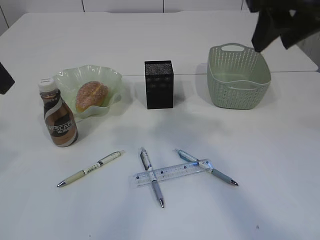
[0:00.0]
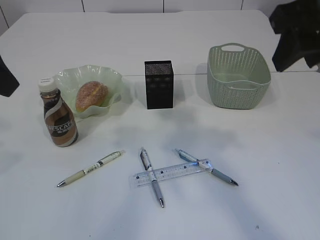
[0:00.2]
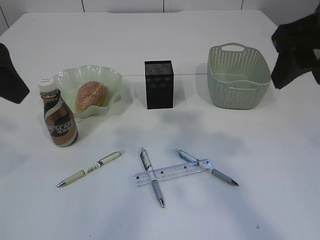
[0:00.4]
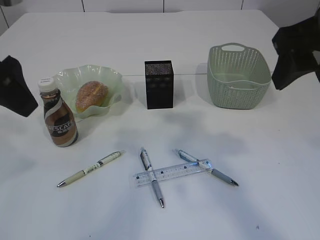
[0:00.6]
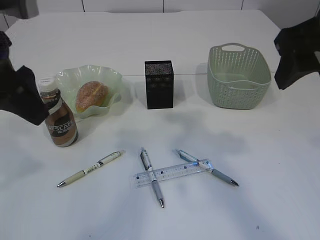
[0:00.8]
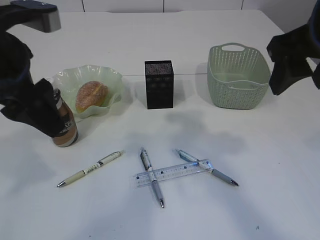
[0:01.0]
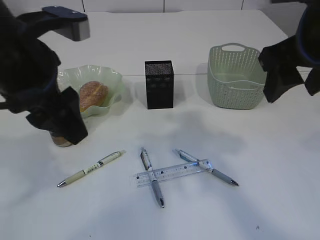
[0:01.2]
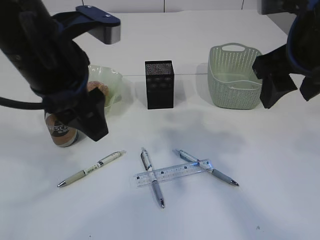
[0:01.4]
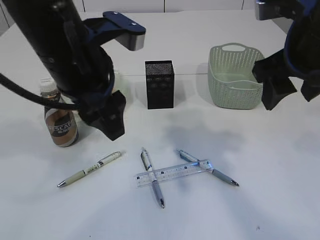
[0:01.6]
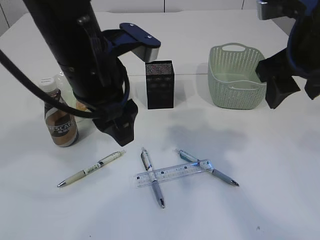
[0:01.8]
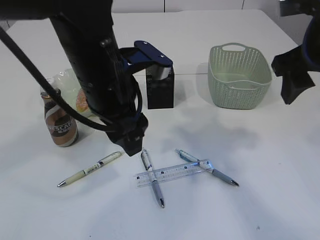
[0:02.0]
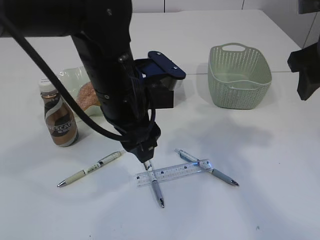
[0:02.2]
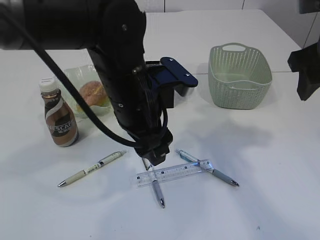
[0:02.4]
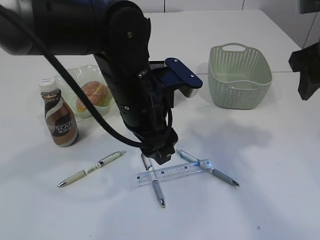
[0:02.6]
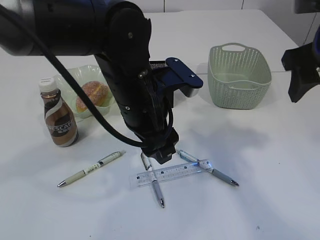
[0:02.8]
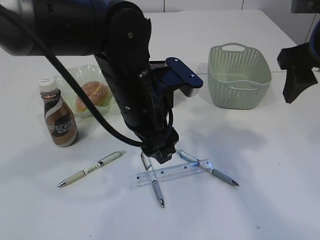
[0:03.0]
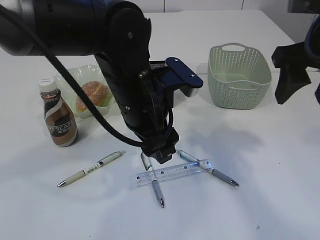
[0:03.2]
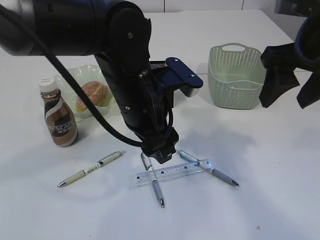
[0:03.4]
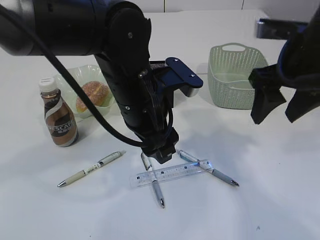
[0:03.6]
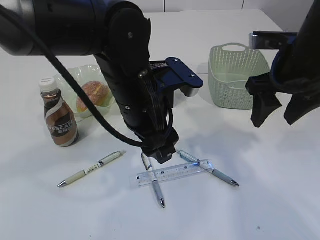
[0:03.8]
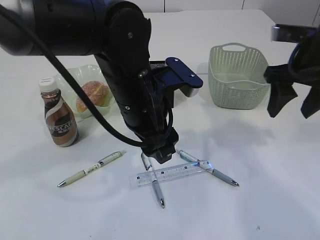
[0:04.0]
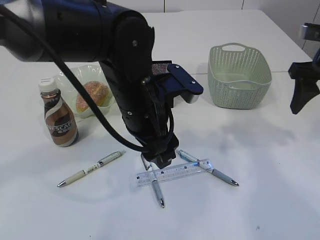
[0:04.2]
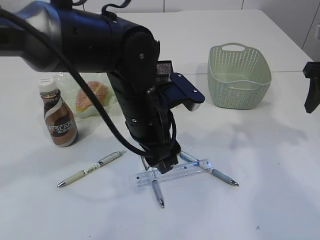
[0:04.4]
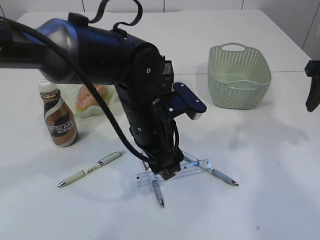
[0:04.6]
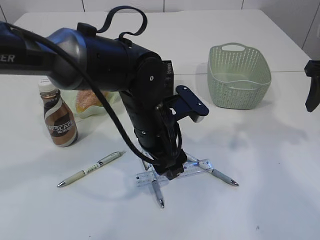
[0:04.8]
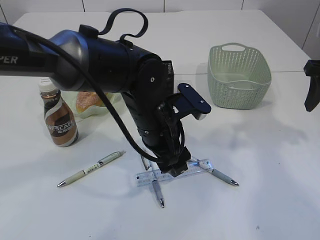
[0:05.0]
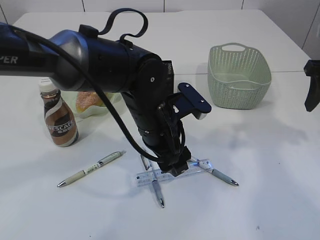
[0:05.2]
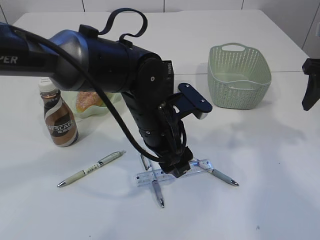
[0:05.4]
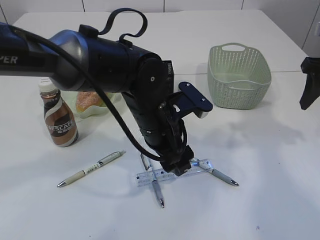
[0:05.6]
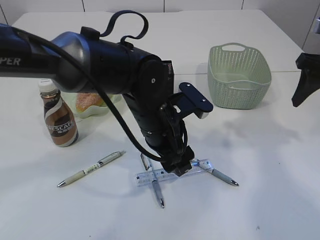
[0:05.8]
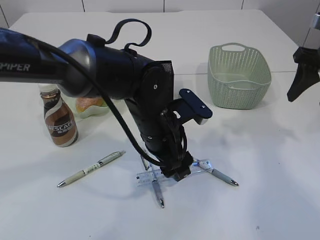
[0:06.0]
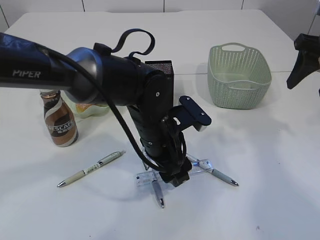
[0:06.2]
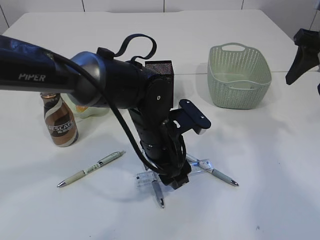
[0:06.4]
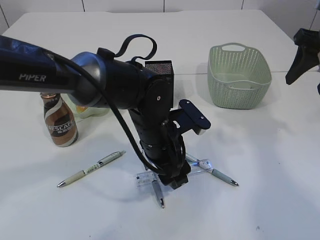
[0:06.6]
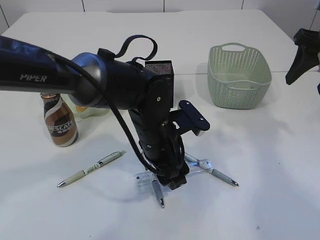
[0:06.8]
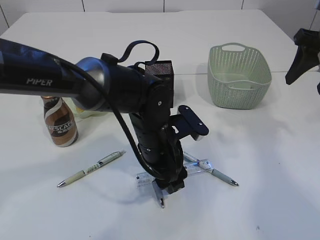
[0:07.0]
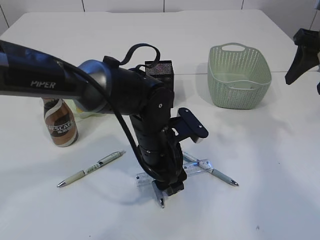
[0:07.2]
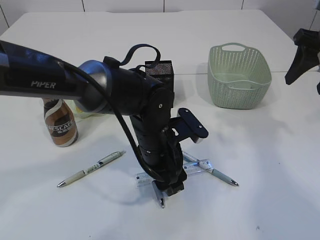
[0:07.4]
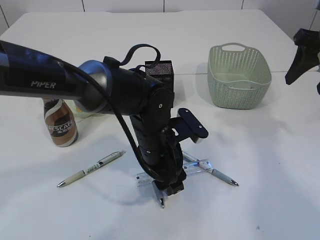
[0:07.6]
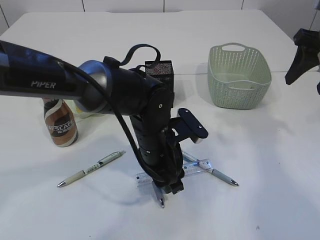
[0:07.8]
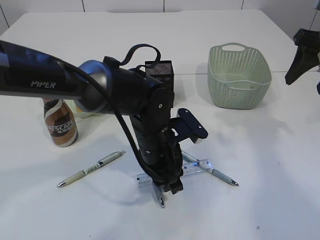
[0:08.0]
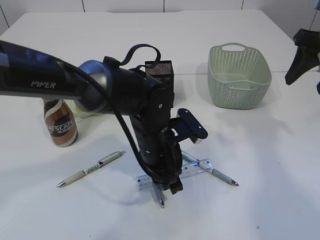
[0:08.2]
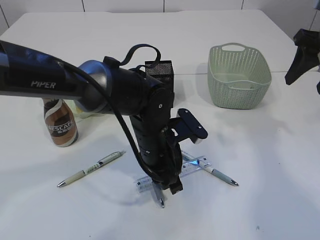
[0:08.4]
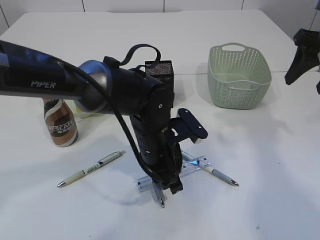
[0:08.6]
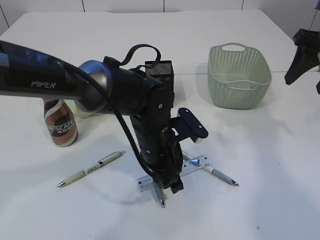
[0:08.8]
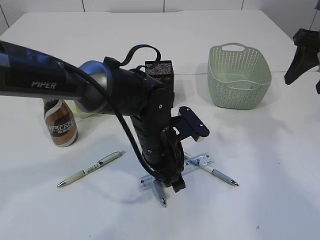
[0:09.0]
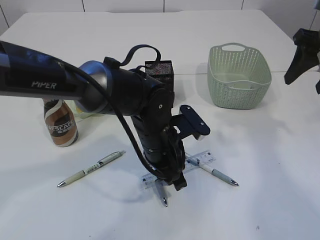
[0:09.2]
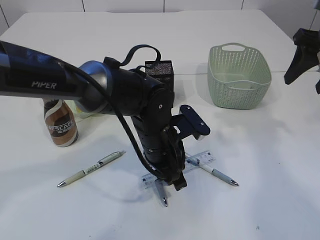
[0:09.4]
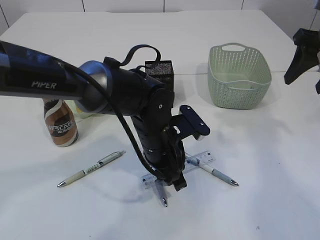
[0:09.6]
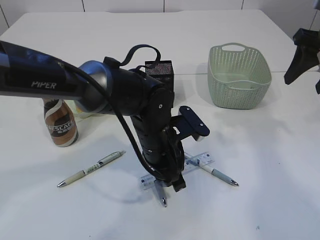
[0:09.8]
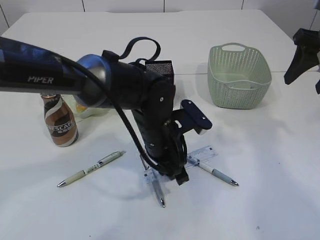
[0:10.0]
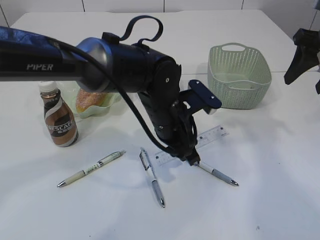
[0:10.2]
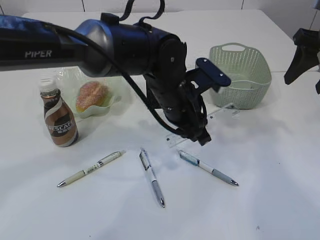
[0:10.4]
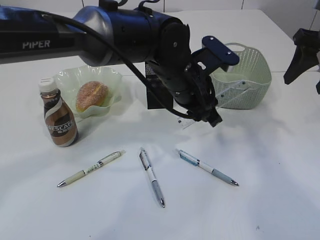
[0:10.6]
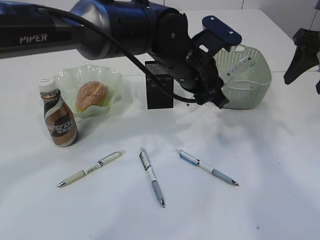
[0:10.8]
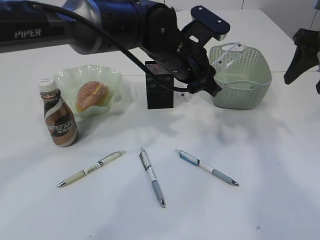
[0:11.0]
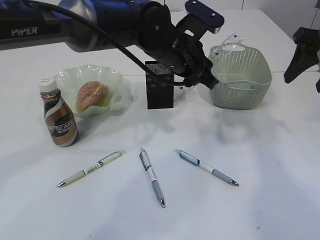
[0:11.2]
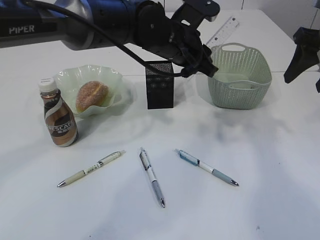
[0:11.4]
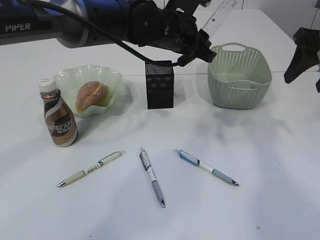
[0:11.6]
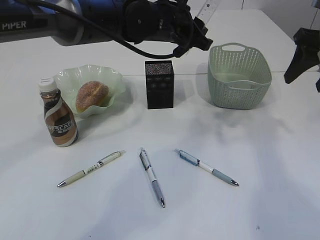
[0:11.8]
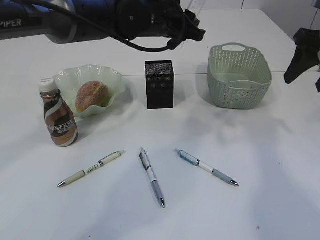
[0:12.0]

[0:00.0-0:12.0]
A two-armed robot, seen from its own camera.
Step, 0:00.0 to 0:10.4: pick up the ruler.
0:00.0 to 0:01.6: The right gripper shifts approximately 5 cm downward. The left gripper goes approximately 15 cm to the right and downward.
0:01.6 to 0:03.0: The left gripper moves downward and to the right, some 10 cm.
0:03.0 to 0:04.4: The right gripper moves to the right and downward, some 10 cm.
0:04.4 to 0:06.0: The left gripper ends up roughly 5 cm from where it was.
0:06.0 to 0:07.6: The grippers stay close to where they were, moving slightly.
0:07.6 to 0:09.0: The left gripper closes.
0:09.0 to 0:10.4: The left gripper shifts roughly 5 cm upward.
0:10.4 to 0:12.0: The left gripper travels forward and upward by some 15 cm.

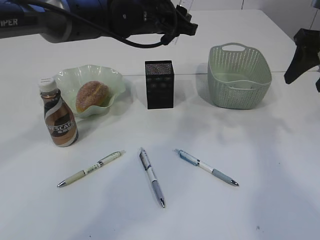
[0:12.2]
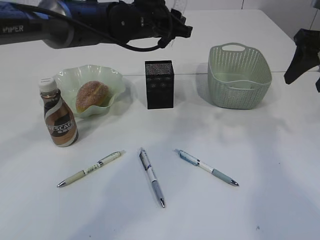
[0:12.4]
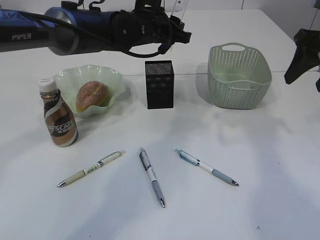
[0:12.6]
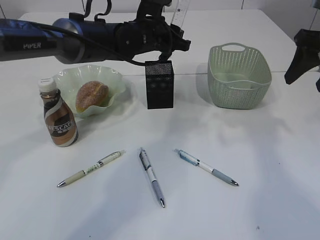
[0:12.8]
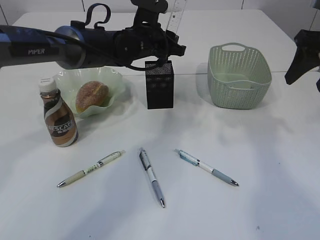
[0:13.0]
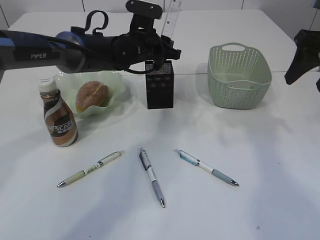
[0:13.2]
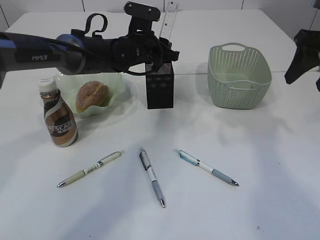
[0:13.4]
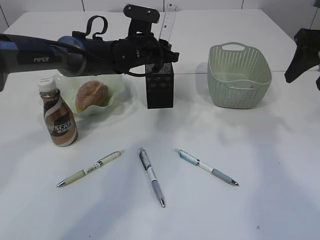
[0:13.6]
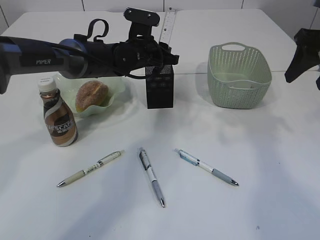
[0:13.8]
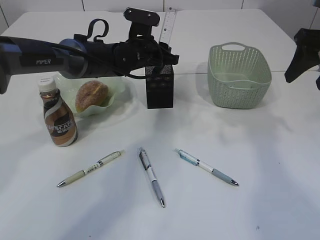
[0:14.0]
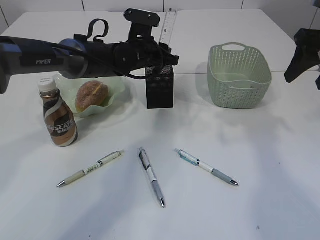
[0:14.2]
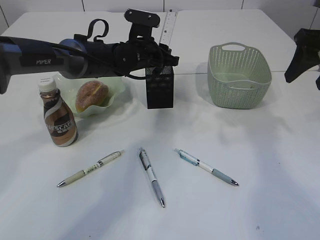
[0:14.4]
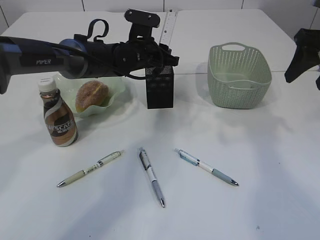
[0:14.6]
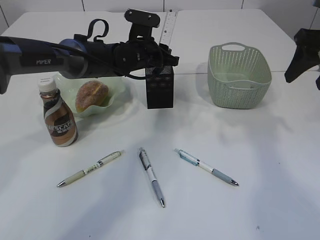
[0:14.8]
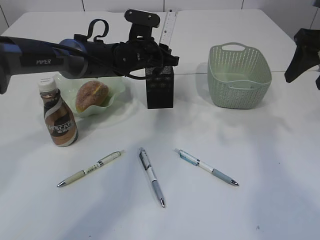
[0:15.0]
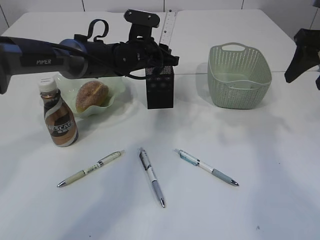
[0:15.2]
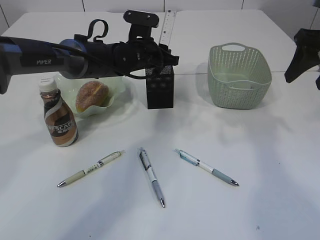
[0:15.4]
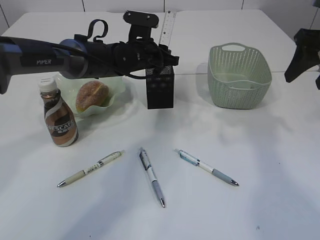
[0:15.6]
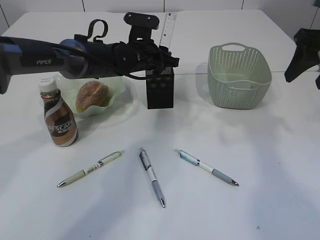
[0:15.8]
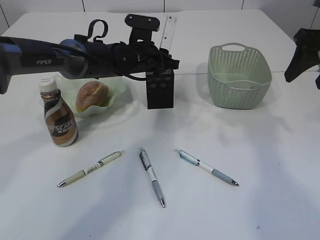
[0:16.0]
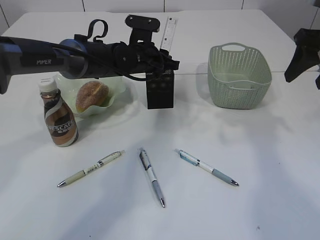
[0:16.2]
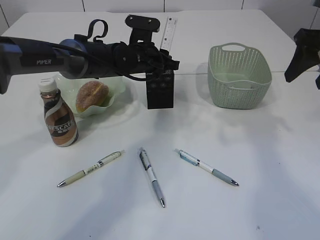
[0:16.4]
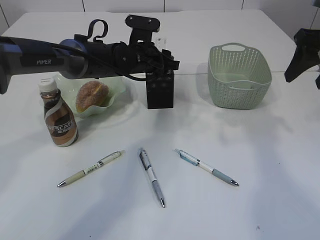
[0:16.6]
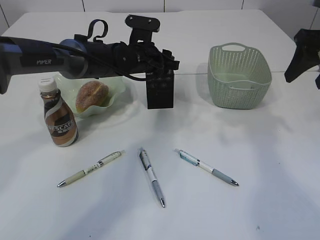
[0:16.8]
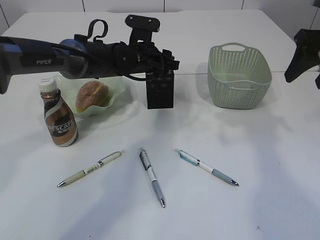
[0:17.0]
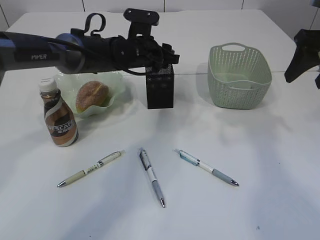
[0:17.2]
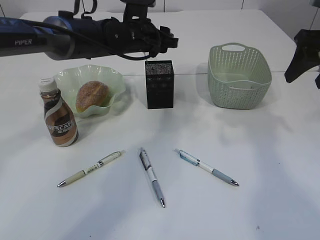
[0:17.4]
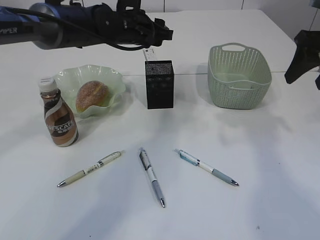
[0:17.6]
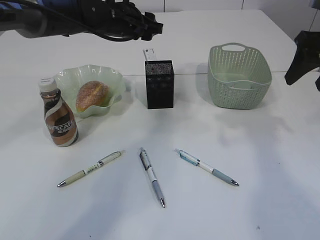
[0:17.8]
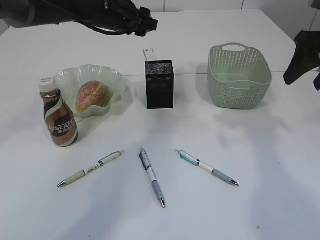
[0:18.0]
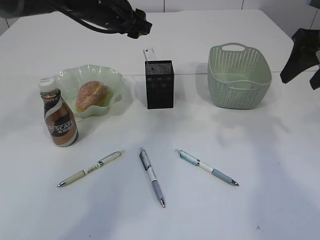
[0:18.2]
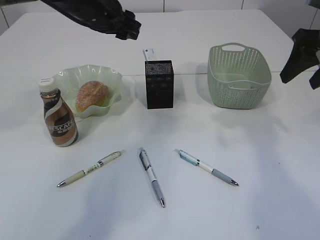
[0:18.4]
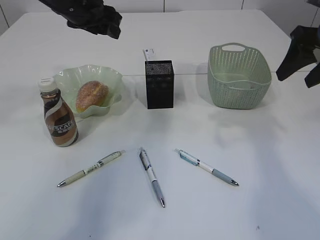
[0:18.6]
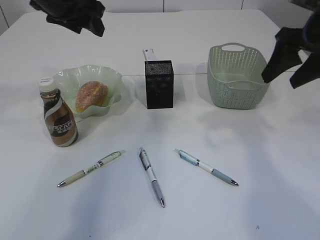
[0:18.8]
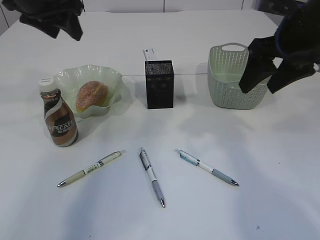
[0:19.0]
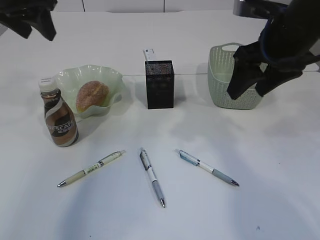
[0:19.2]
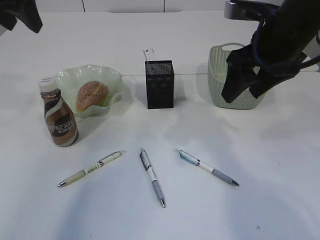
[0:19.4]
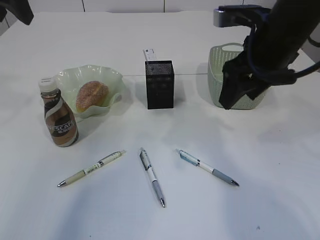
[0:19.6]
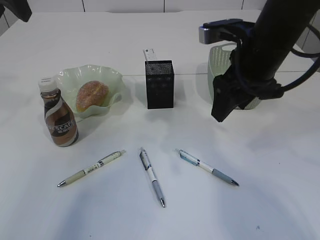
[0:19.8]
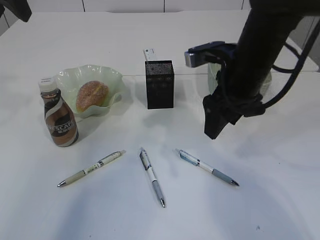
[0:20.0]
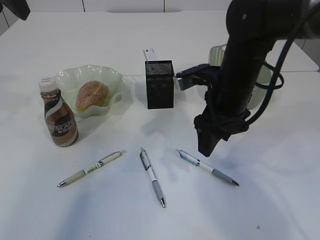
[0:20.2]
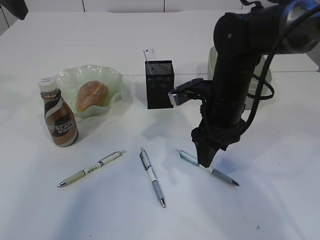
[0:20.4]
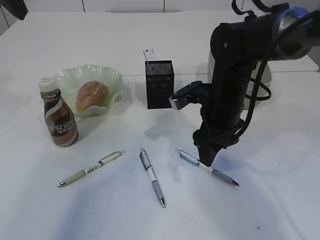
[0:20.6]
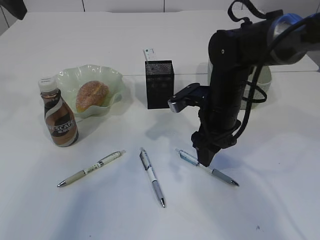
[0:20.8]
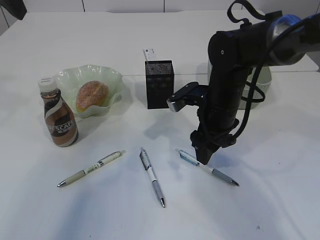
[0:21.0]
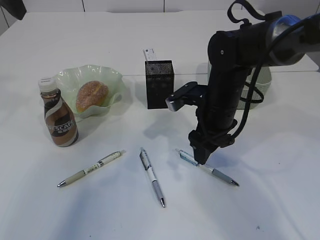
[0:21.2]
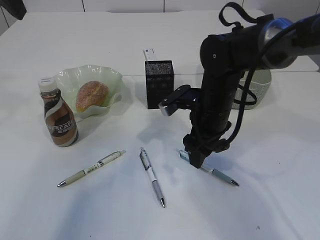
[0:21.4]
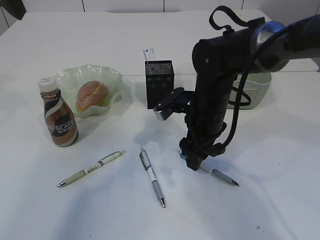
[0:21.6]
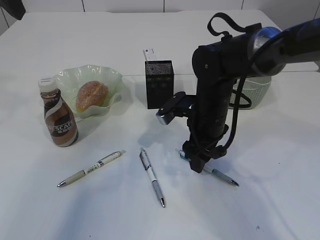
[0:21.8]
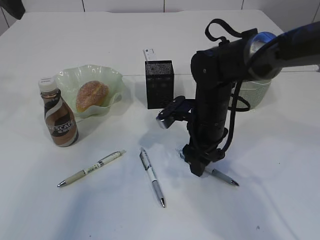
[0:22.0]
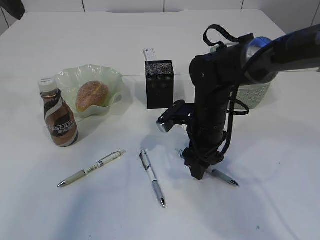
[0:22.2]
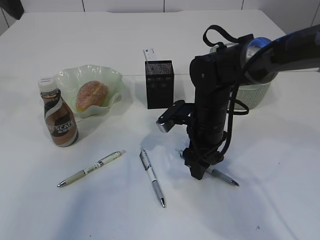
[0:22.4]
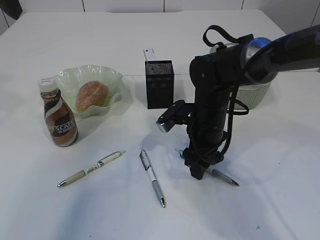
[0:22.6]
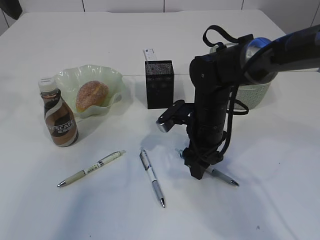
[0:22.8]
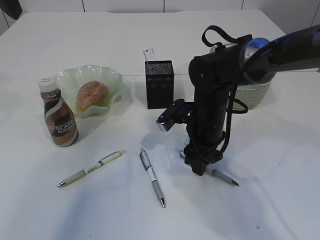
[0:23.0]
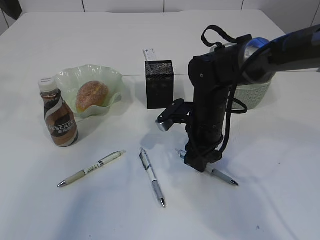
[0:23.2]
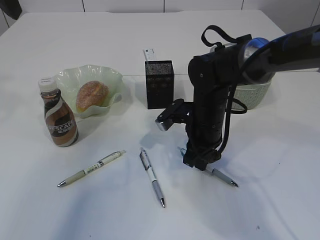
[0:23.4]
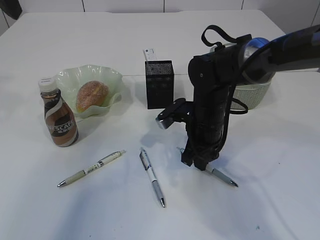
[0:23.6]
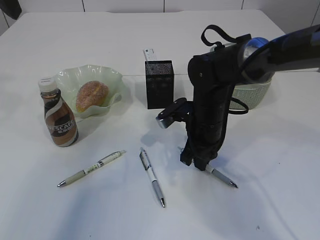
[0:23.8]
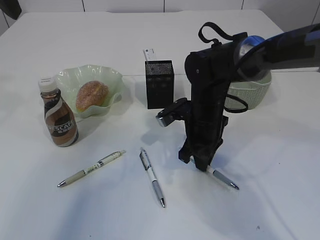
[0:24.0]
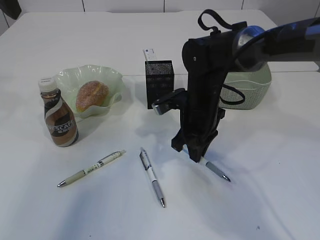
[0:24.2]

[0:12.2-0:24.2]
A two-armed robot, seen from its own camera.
Step, 0:12.2 to 0:17.4: Place the ruler into the pen holder.
0:12.2 to 0:13.8: The left gripper goes some 10 cm downward.
0:13.8 to 0:15.2: The two grippers keep their place.
0:15.2 to 0:16.6: Both grippers stay put.
0:16.6 to 0:18.2: The left gripper heads upward and to the left, covering some 10 cm.
0:18.2 to 0:19.8: The left gripper moves to the left, upward and backward, roughly 20 cm, while the right gripper travels to the left by approximately 15 cm.
0:19.8 to 0:21.2: The right gripper moves downward, roughly 15 cm.
0:21.2 to 0:22.6: There are only small adjustments of the grippers.
0:22.6 to 0:24.2: The right gripper closes up.
